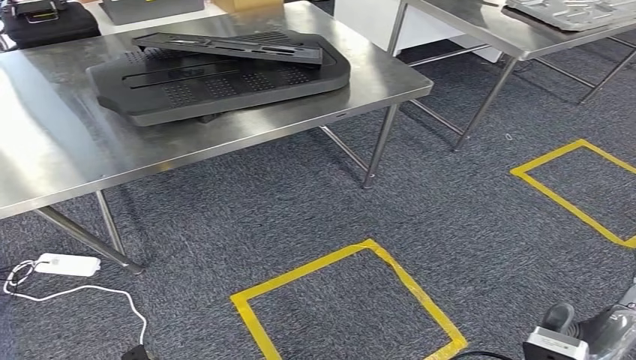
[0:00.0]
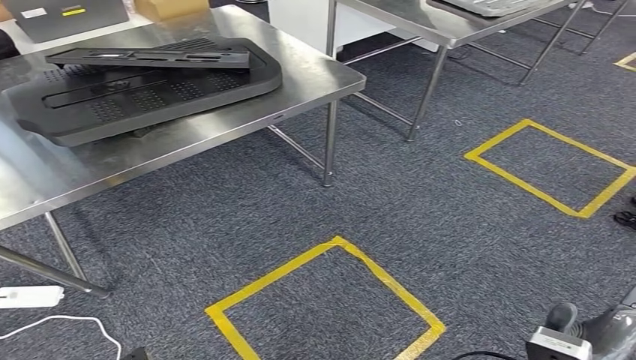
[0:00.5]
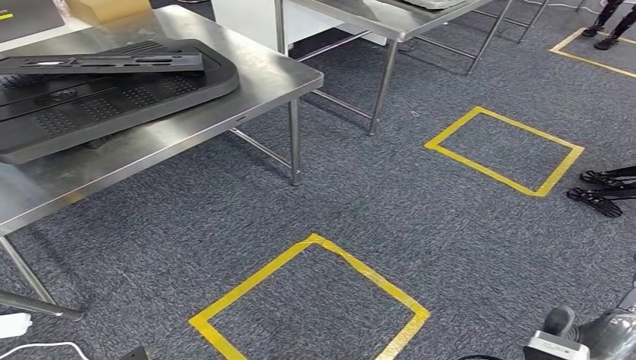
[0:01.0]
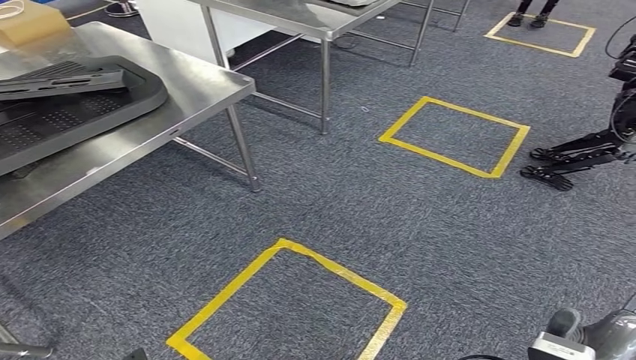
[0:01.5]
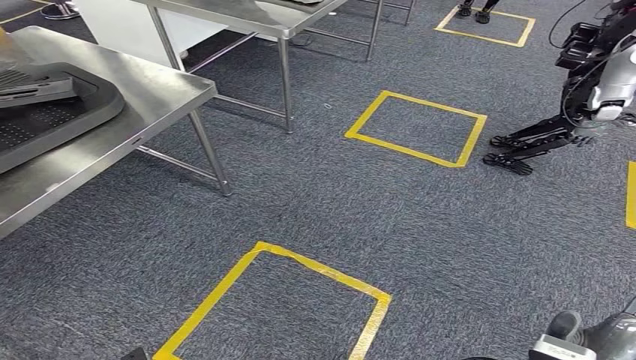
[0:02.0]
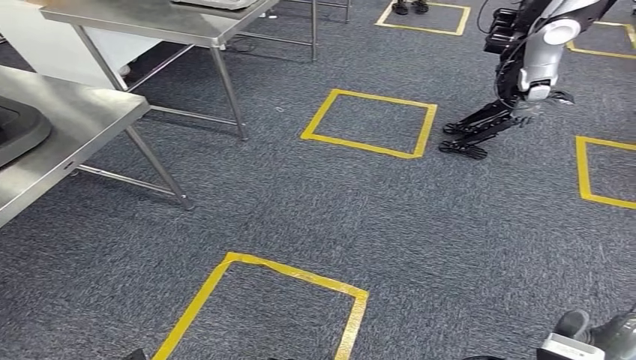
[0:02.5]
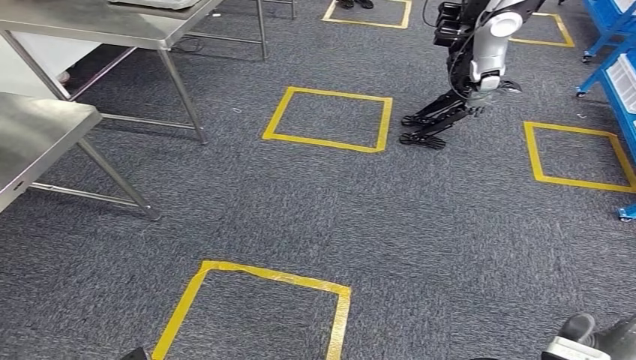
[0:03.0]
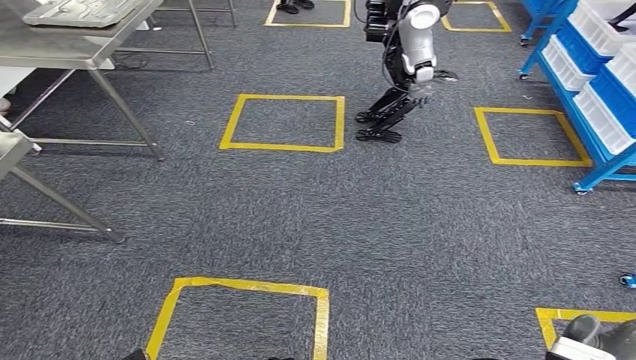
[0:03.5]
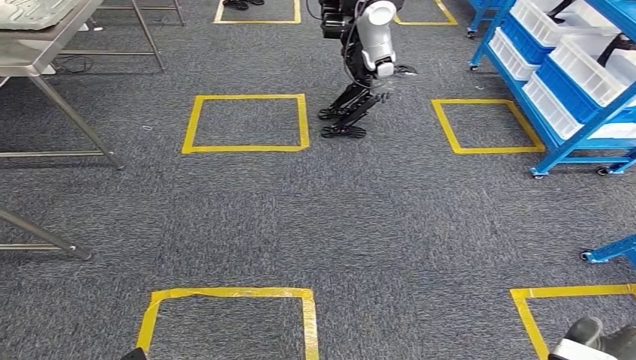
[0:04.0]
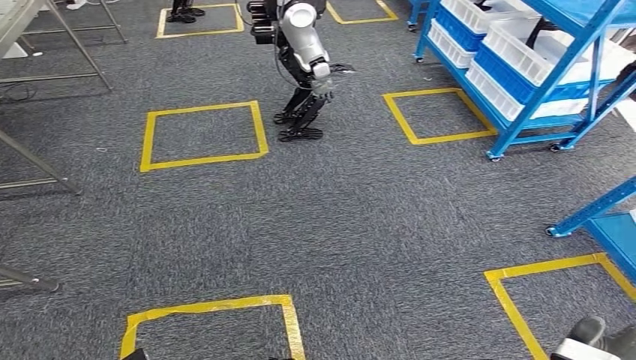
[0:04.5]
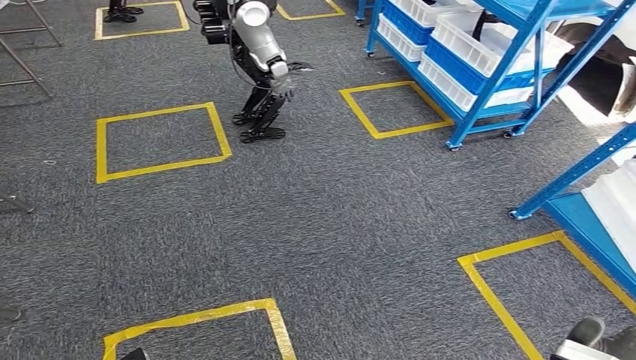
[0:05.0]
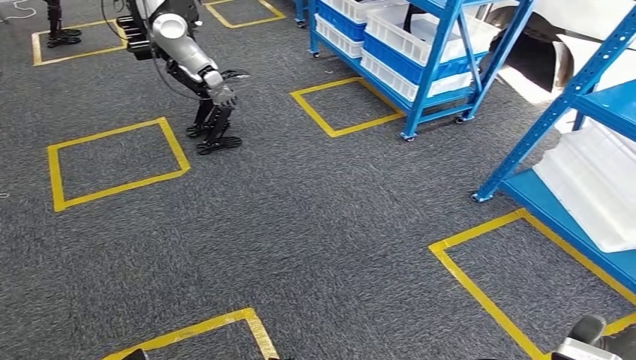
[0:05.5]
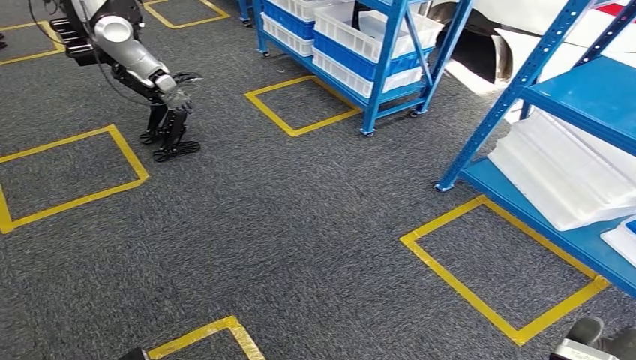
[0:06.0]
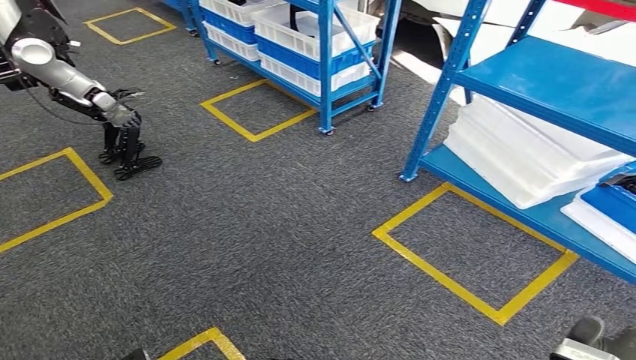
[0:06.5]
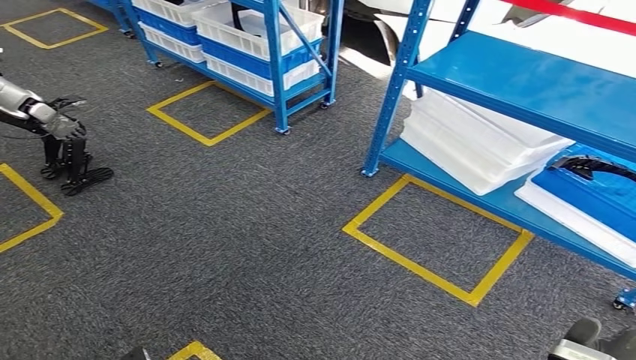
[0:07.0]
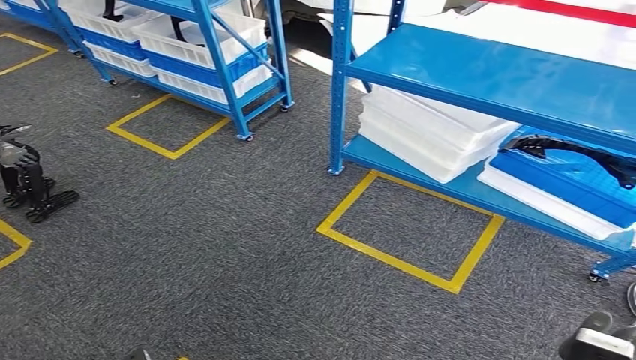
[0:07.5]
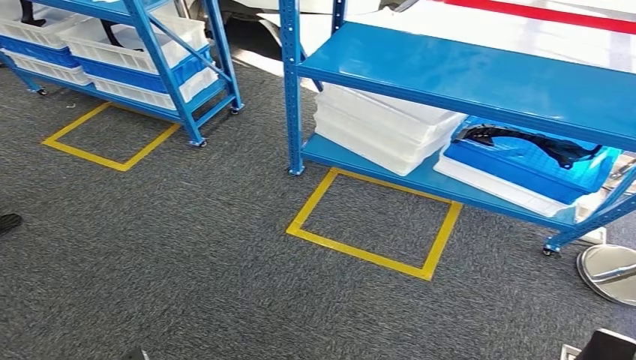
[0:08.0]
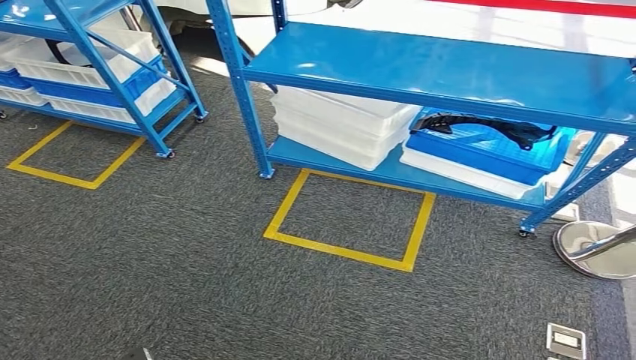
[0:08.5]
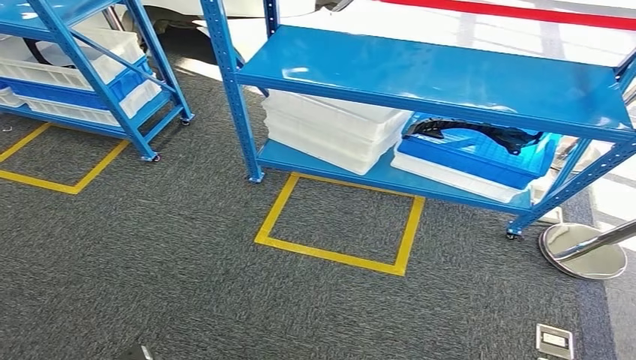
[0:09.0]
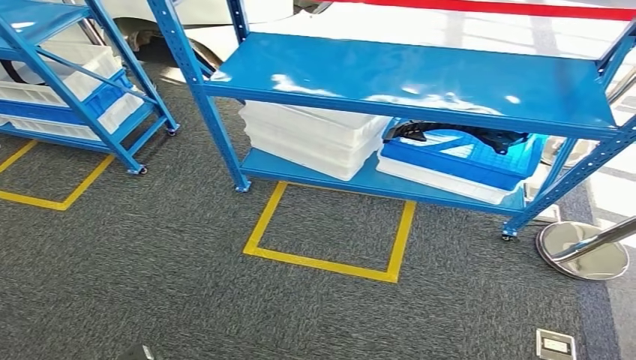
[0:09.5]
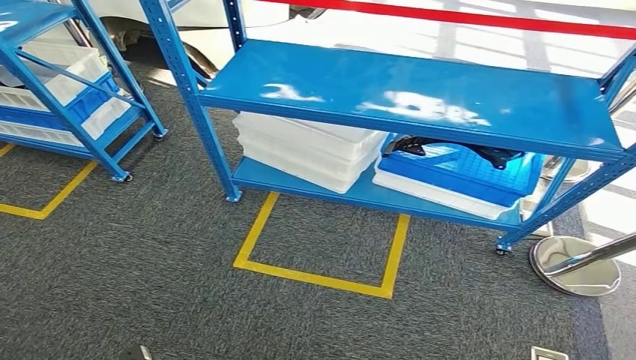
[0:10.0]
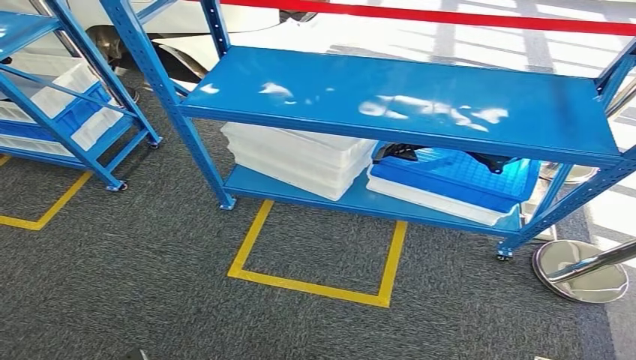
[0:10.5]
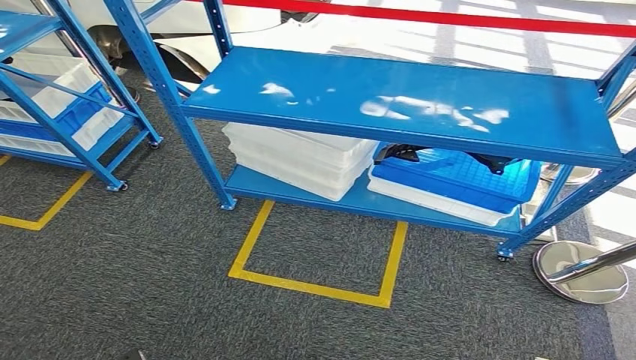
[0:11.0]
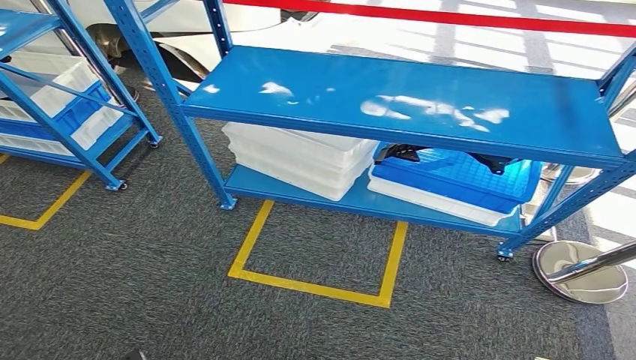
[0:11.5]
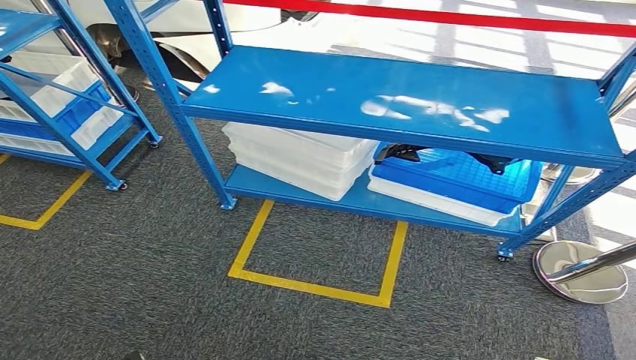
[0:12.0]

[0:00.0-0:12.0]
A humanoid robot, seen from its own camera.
Step, 0:00.0 to 0:12.0: Move to the initial position of the shelf.

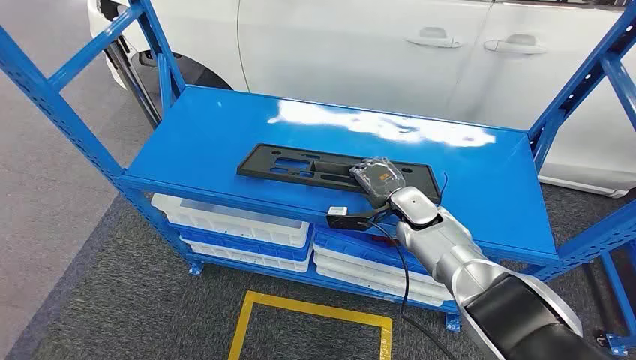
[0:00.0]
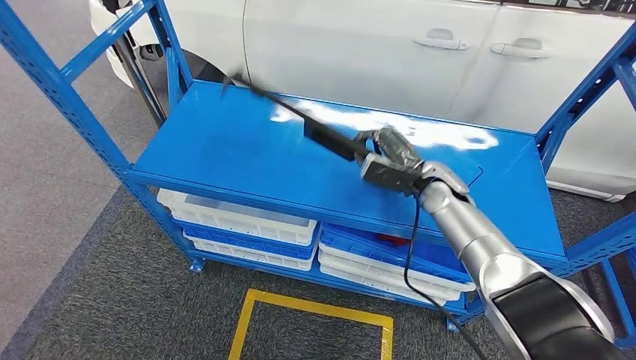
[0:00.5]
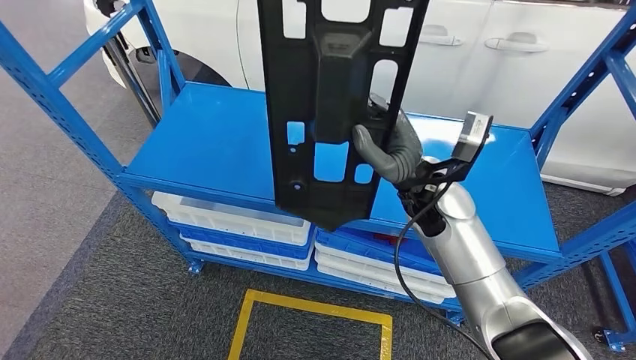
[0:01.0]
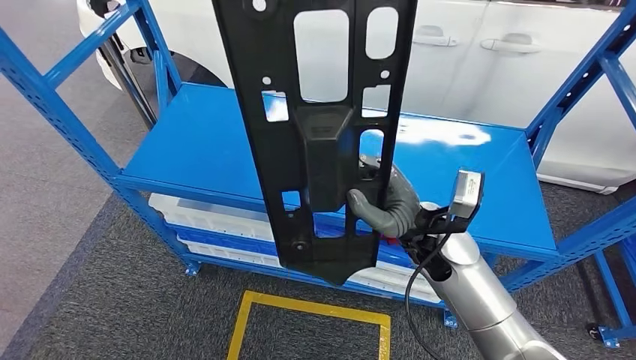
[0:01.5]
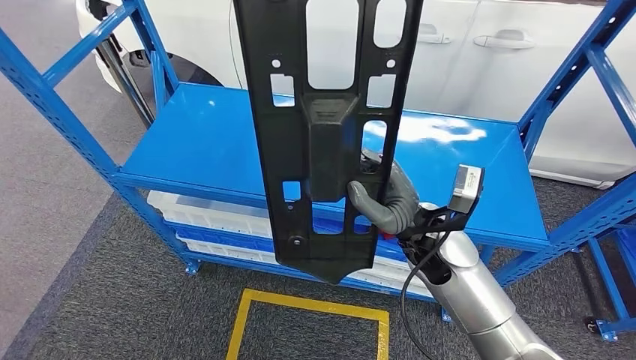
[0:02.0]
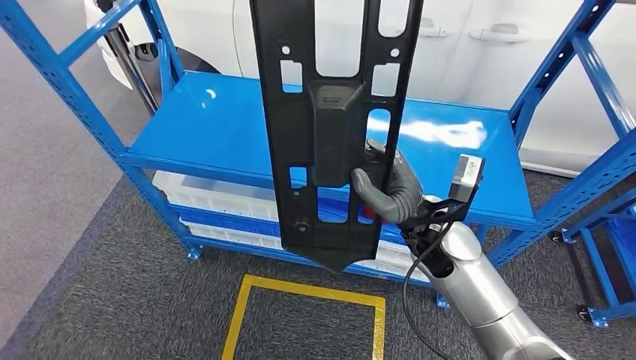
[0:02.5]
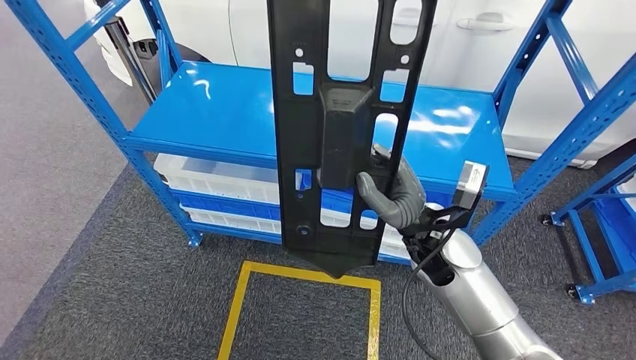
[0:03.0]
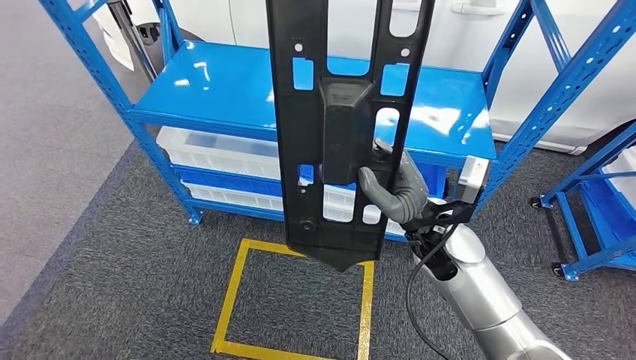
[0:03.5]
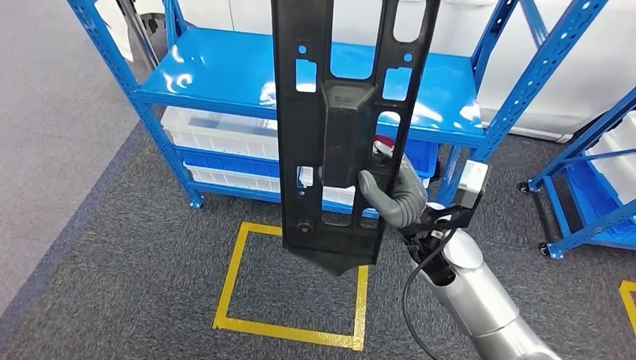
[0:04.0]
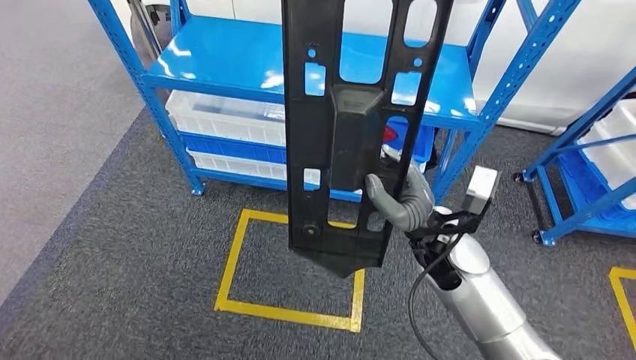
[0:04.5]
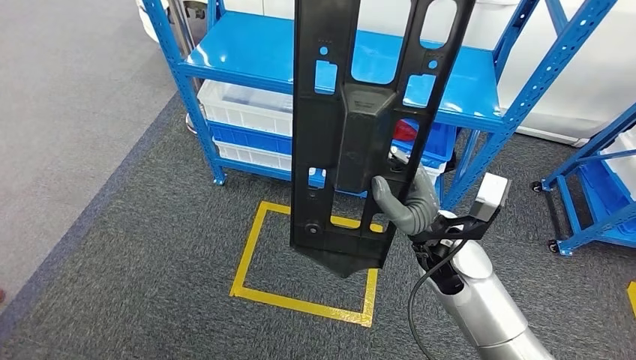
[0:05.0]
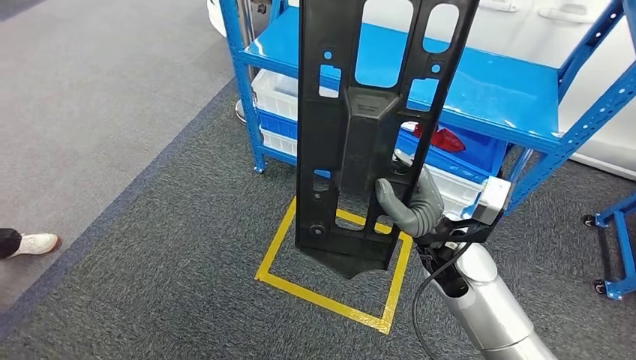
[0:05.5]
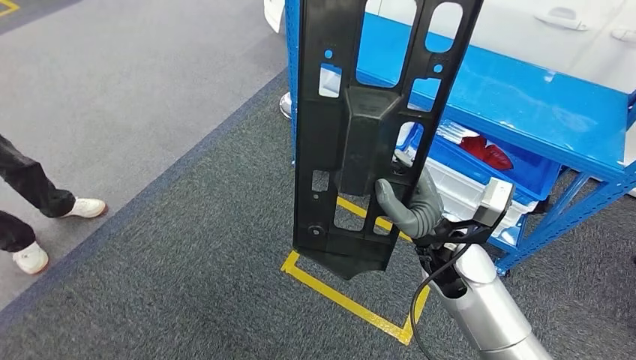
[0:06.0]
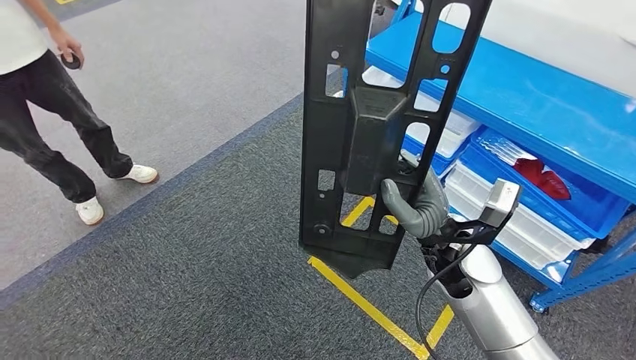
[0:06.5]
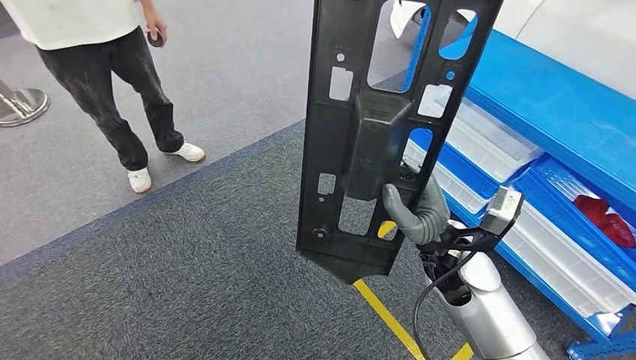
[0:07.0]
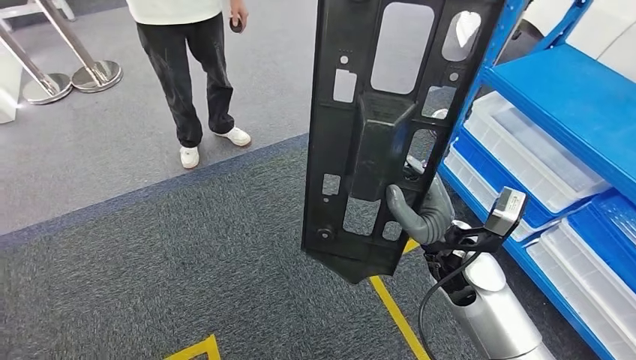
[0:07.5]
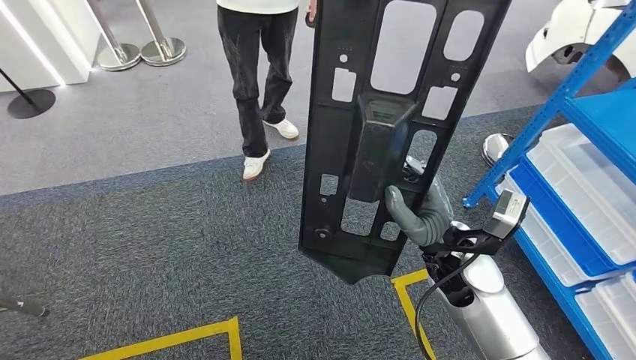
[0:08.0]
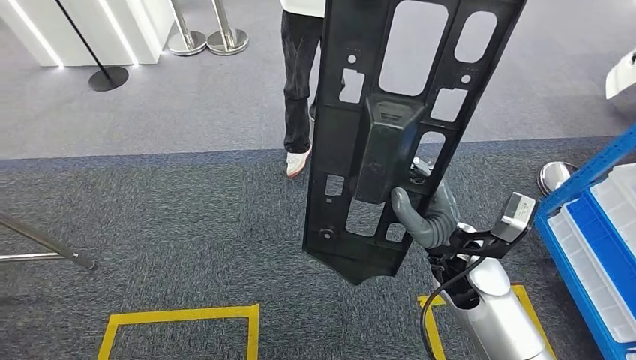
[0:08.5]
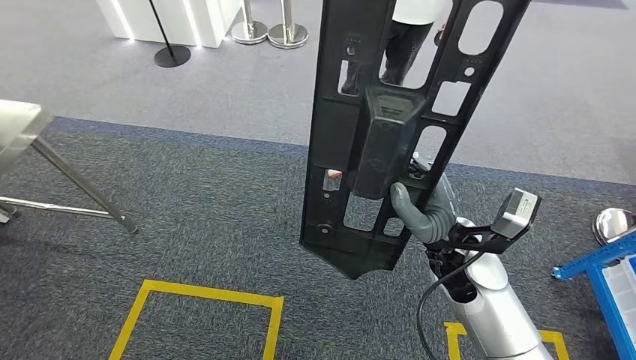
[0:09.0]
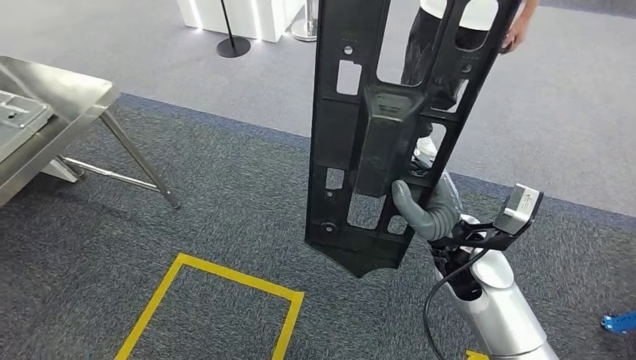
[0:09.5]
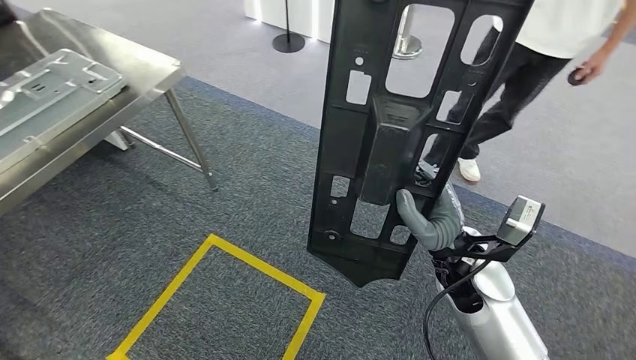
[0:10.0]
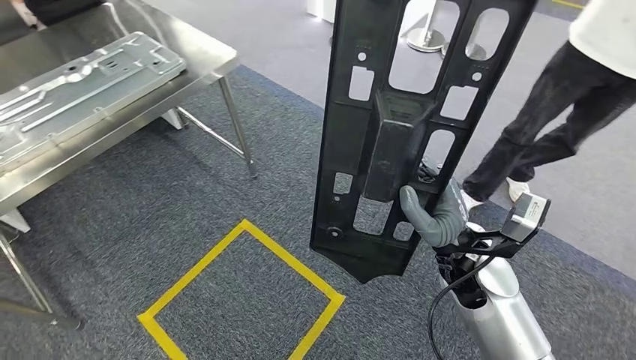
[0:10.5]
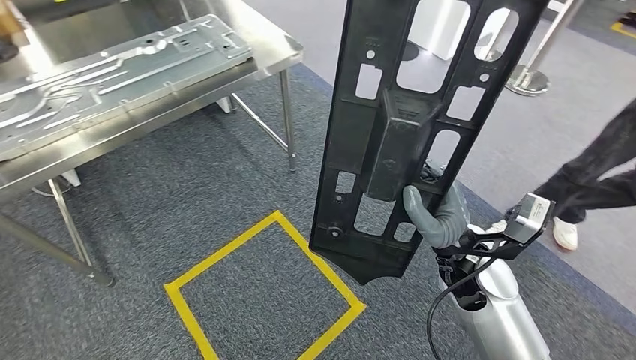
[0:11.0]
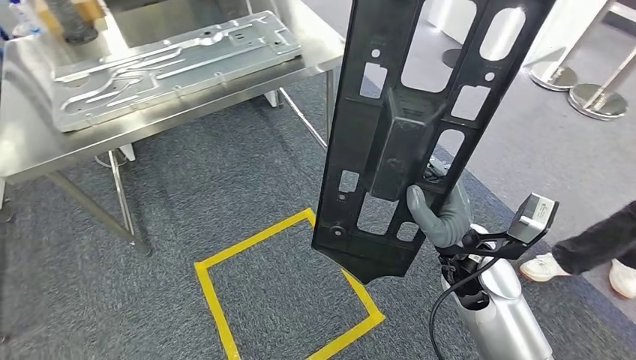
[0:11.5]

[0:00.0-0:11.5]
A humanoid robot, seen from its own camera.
Step, 0:00.0 to 0:03.0: Pick up the large material from the shelf.
